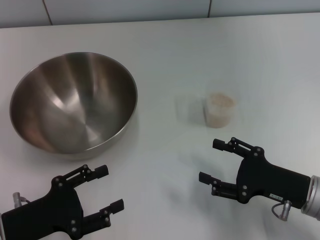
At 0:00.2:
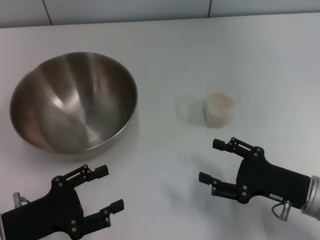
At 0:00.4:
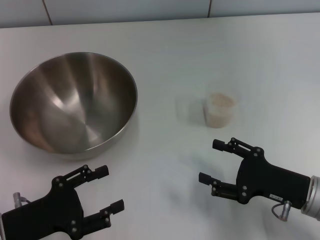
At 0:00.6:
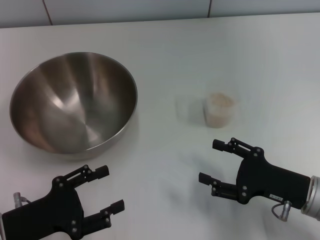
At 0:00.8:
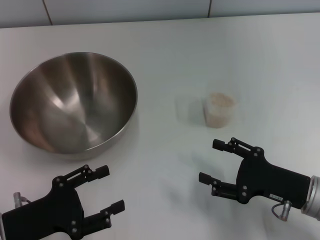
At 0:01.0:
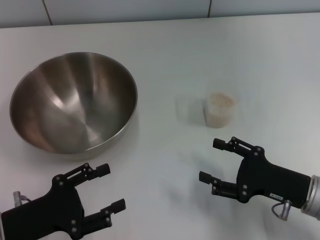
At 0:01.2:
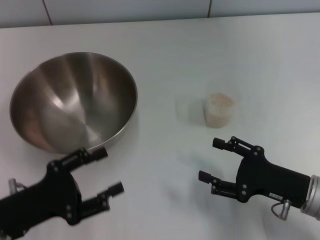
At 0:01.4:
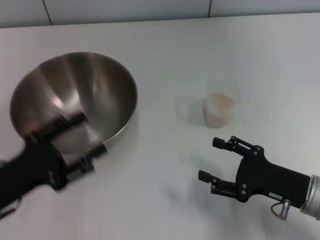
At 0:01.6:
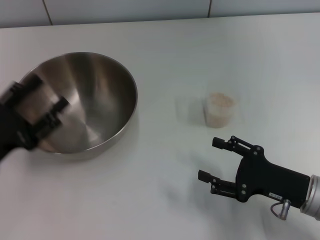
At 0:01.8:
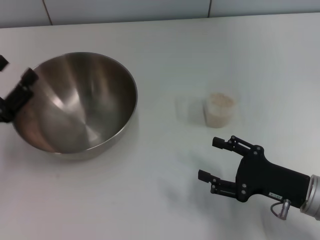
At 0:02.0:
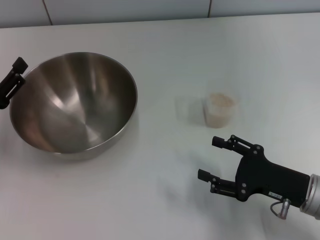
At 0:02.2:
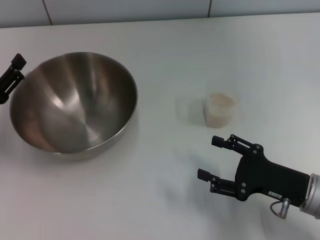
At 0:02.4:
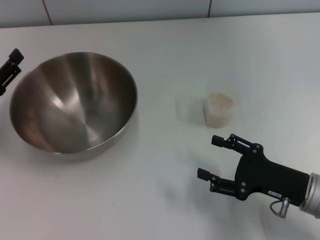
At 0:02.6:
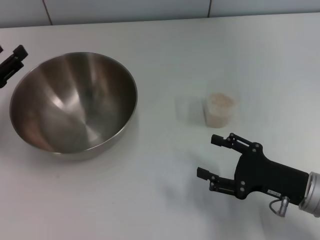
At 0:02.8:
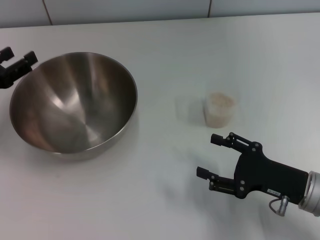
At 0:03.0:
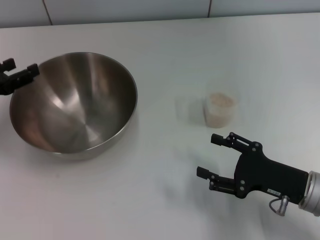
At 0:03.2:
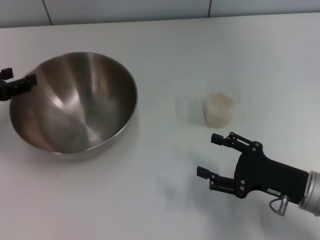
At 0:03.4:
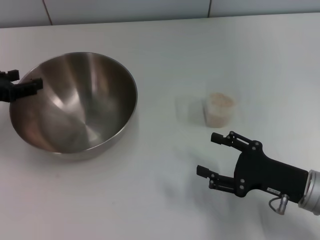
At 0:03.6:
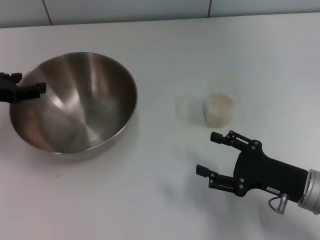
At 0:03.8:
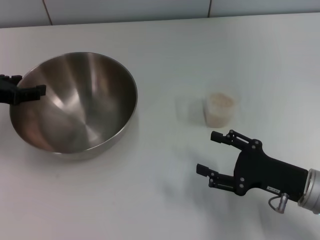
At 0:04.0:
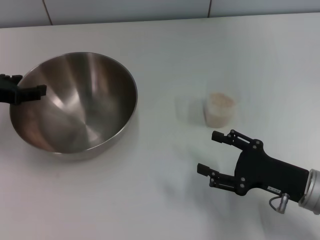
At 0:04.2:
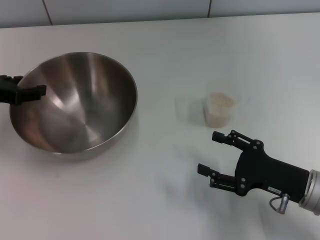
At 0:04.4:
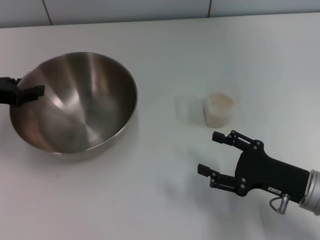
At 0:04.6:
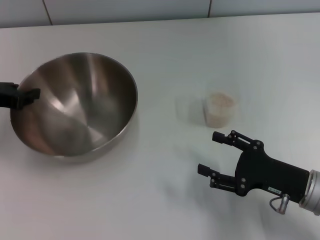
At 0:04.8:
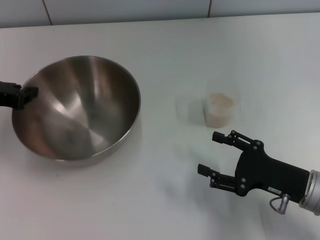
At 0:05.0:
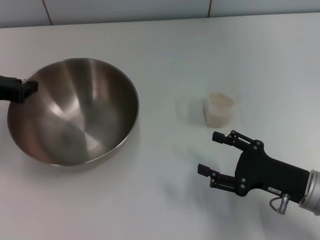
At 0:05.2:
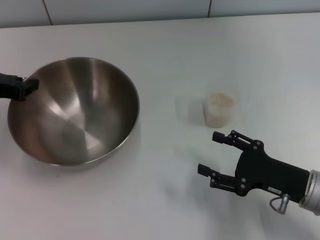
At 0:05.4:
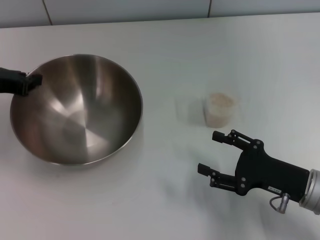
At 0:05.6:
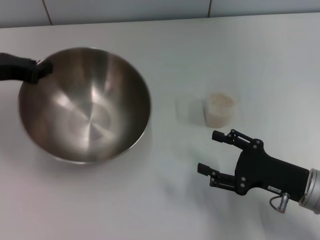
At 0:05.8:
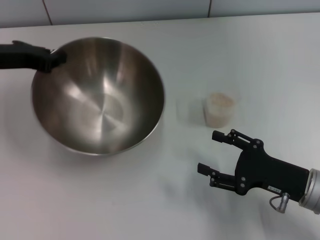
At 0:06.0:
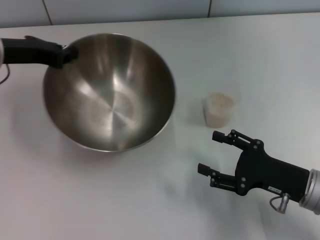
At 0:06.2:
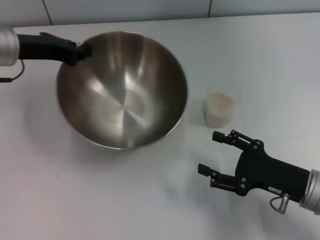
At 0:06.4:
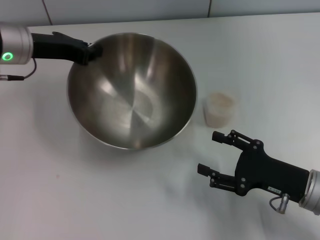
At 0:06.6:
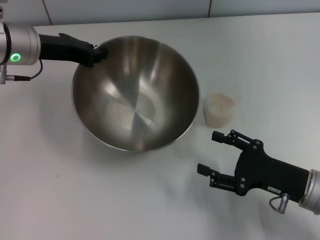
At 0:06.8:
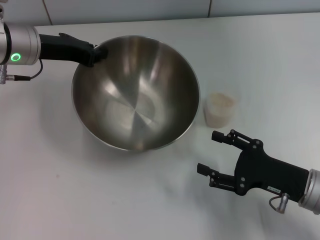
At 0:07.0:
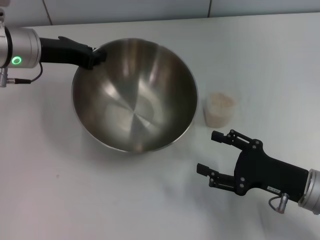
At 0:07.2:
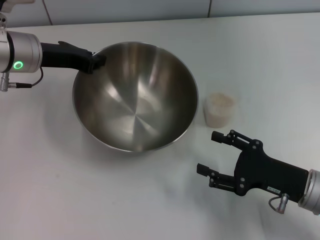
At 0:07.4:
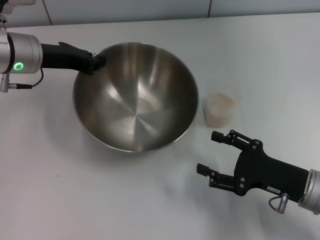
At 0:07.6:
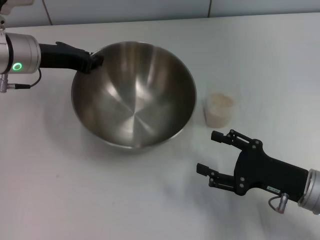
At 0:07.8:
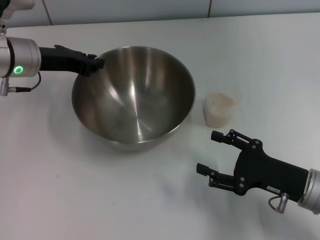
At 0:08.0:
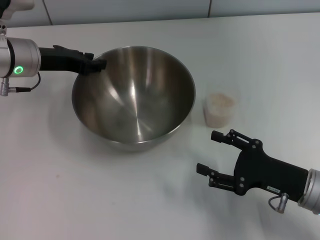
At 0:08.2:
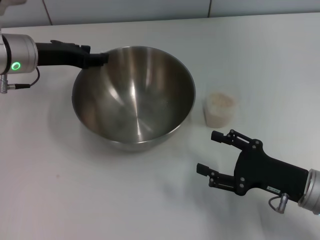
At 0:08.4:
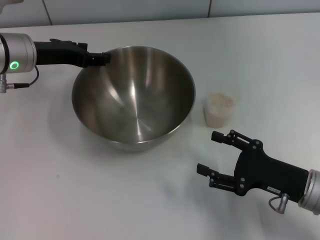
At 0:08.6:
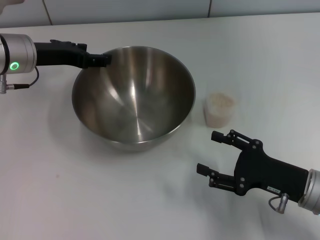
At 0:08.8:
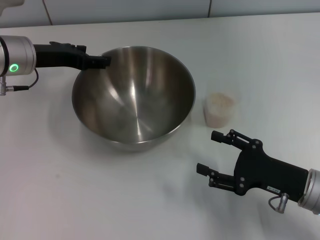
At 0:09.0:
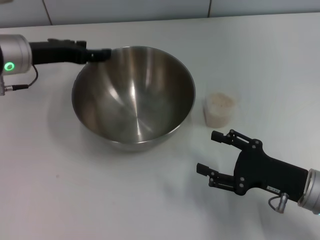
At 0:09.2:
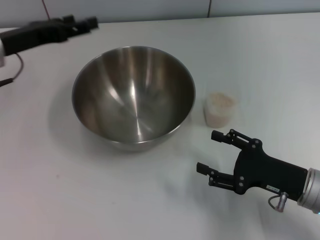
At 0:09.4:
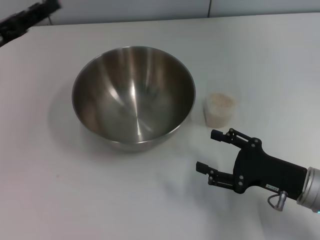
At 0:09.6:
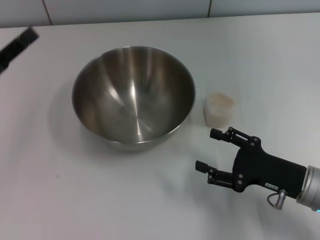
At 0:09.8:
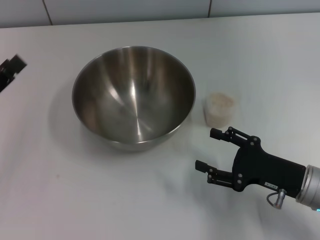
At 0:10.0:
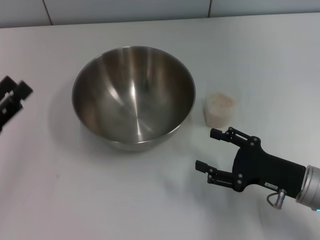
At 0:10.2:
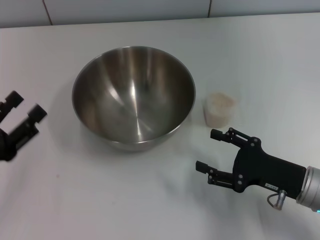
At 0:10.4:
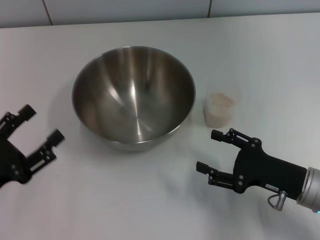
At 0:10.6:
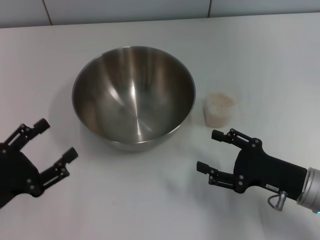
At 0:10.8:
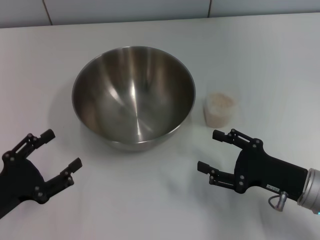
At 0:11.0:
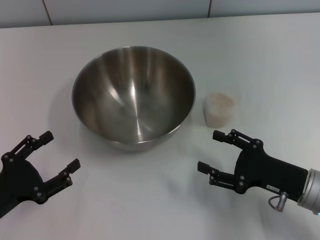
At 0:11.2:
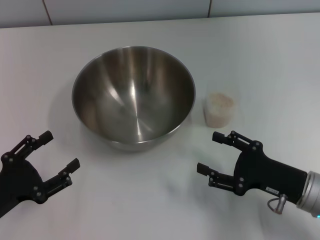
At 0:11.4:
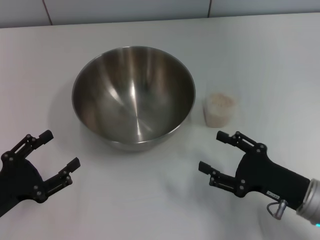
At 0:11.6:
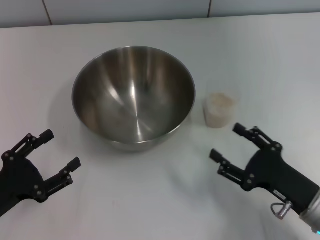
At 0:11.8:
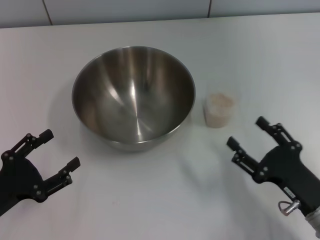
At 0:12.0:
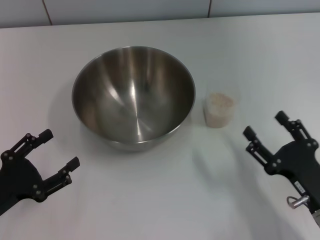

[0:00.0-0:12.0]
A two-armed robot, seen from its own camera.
Task of the whole recording: Place the bowl in the middle of the table with one hand and pour the rice from the grain cup into it with the other hand.
Step, 0:00.0 to 0:05.4: Pick up the bowl with the left gripper.
Step, 0:05.6 to 0:08.4: Place the bowl in the center of view with the left gripper.
0:00.0 to 0:01.6: The left gripper ends up about 5 cm from where it was.
0:01.6 to 0:03.0: The left gripper travels forward by some 10 cm.
0:04.4 to 0:06.0: The left gripper moves to the right, approximately 5 cm, and closes up.
0:07.6 to 0:09.0: The left gripper opens.
0:09.0 to 0:10.4: The left gripper heads backward, covering some 20 cm.
0:10.4 to 0:12.0: The right gripper heads backward, covering about 5 cm.

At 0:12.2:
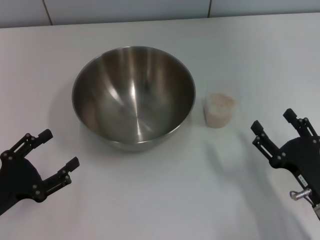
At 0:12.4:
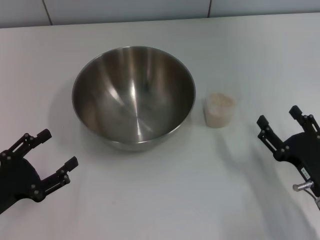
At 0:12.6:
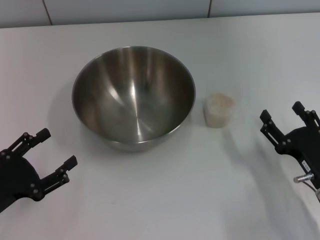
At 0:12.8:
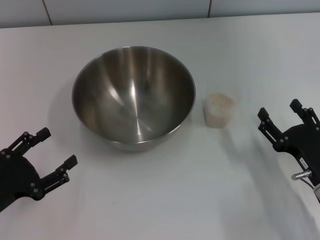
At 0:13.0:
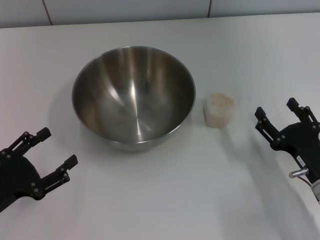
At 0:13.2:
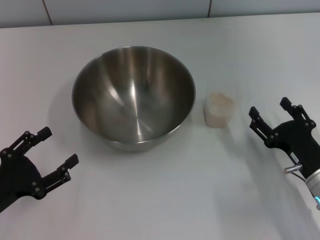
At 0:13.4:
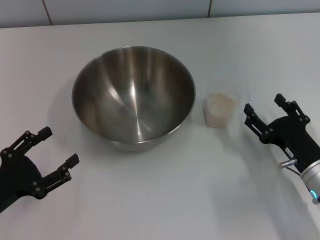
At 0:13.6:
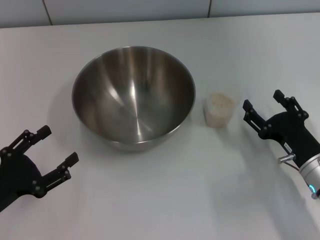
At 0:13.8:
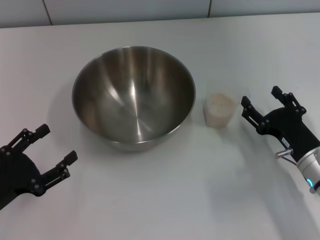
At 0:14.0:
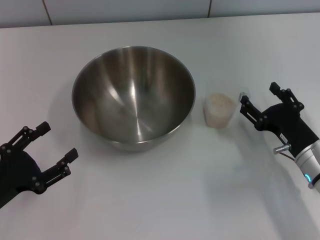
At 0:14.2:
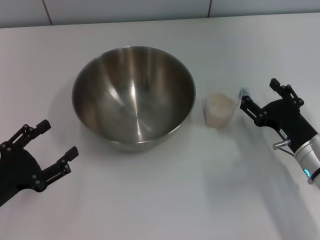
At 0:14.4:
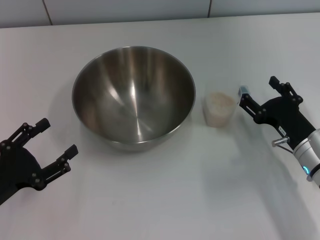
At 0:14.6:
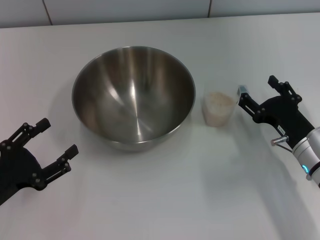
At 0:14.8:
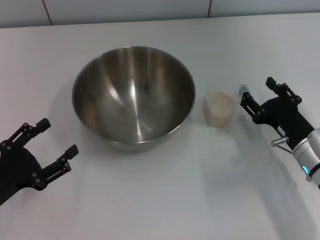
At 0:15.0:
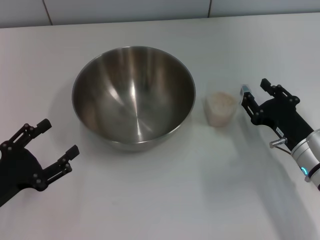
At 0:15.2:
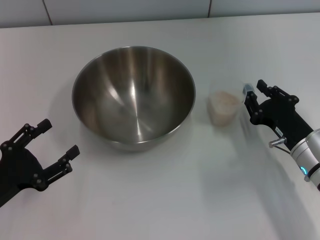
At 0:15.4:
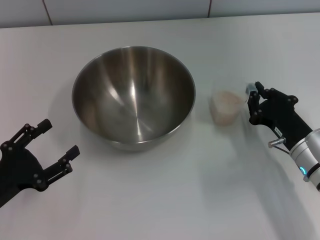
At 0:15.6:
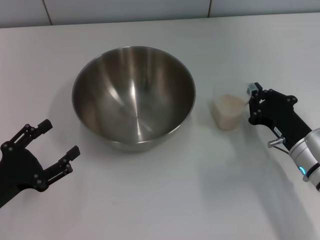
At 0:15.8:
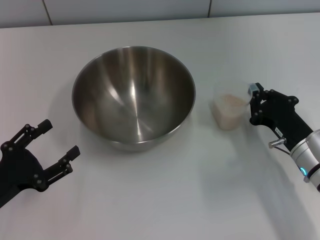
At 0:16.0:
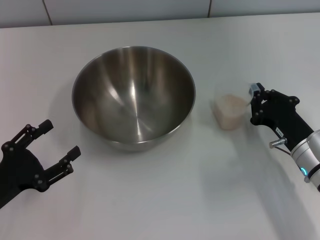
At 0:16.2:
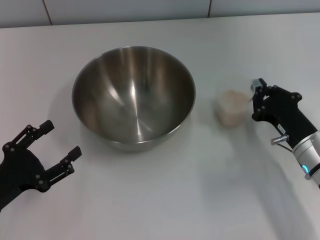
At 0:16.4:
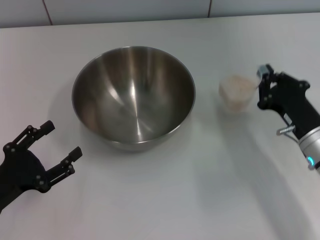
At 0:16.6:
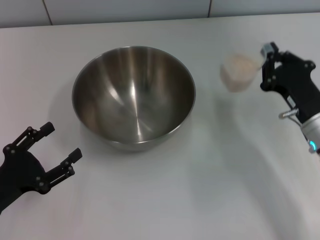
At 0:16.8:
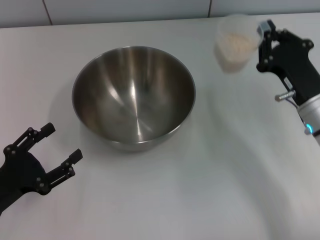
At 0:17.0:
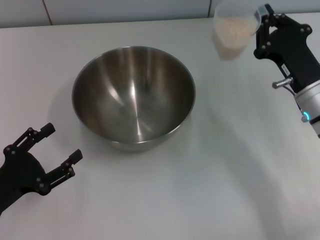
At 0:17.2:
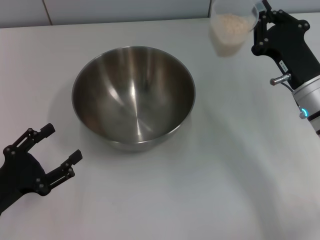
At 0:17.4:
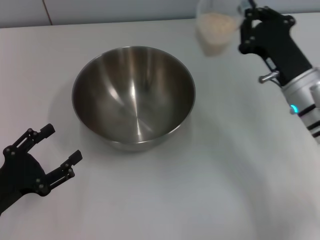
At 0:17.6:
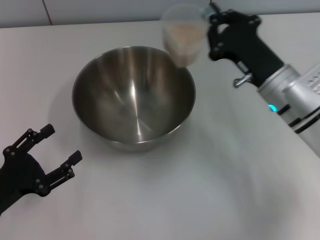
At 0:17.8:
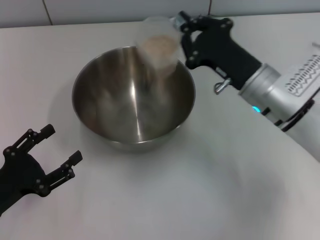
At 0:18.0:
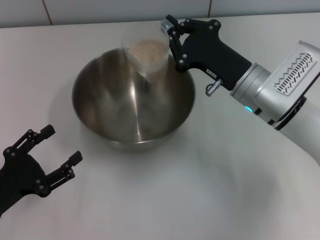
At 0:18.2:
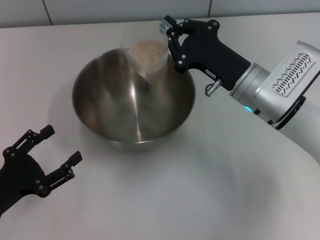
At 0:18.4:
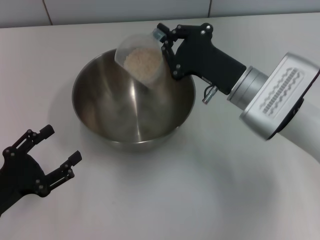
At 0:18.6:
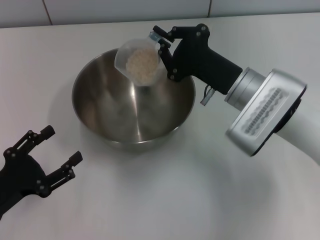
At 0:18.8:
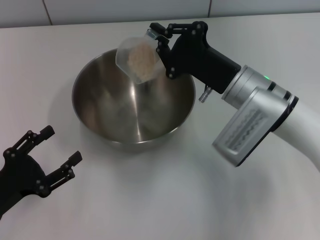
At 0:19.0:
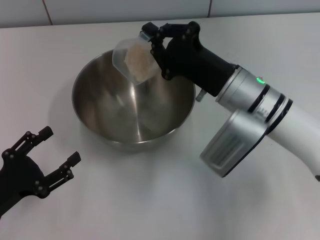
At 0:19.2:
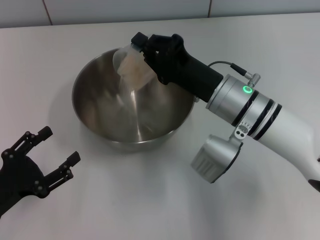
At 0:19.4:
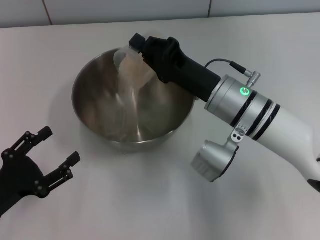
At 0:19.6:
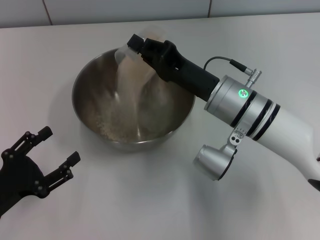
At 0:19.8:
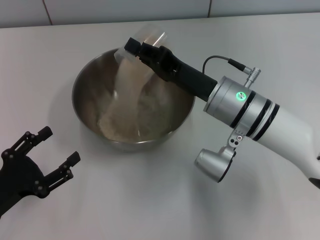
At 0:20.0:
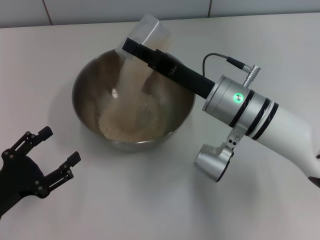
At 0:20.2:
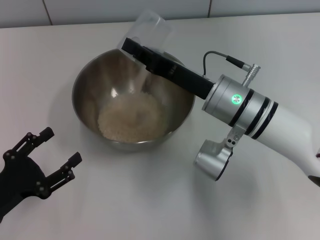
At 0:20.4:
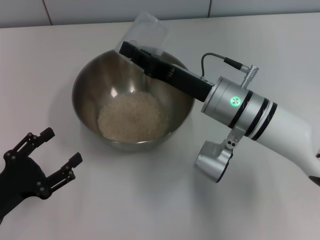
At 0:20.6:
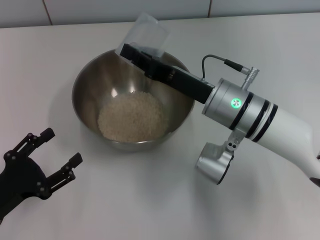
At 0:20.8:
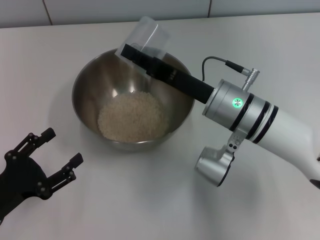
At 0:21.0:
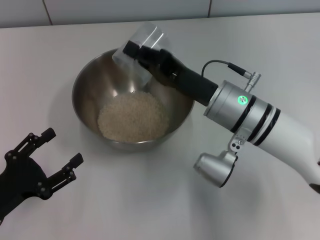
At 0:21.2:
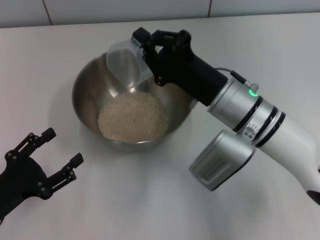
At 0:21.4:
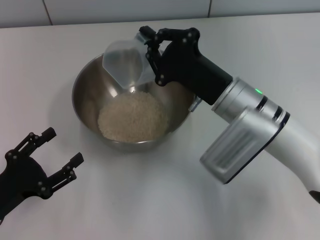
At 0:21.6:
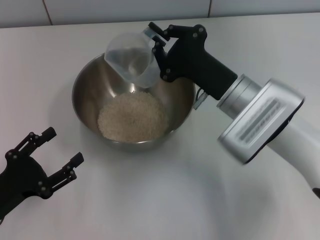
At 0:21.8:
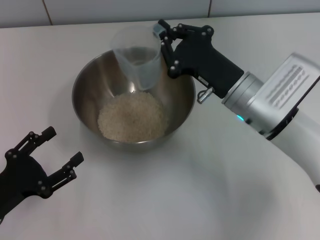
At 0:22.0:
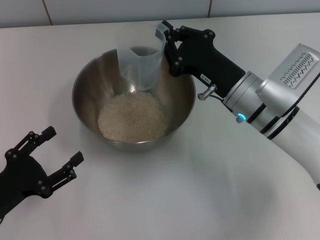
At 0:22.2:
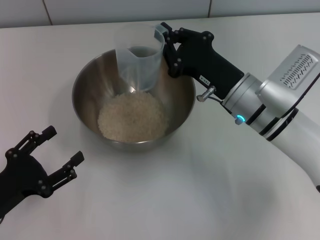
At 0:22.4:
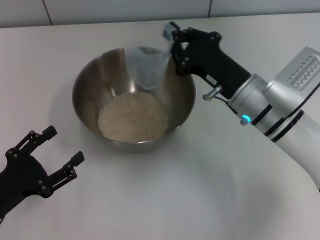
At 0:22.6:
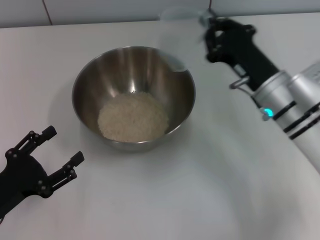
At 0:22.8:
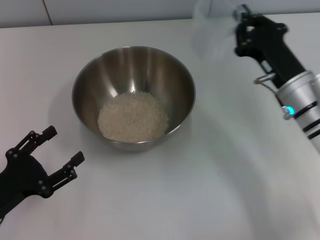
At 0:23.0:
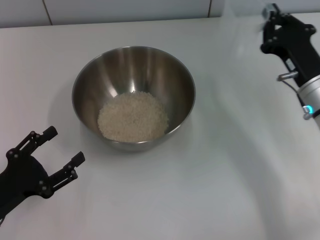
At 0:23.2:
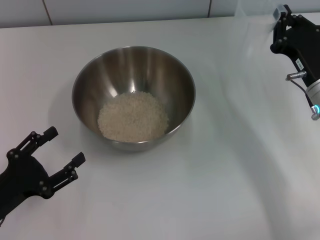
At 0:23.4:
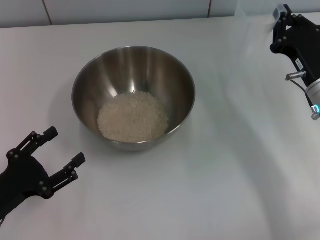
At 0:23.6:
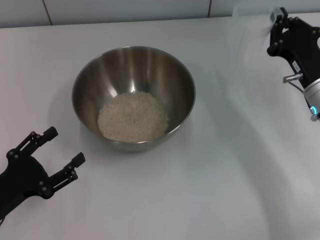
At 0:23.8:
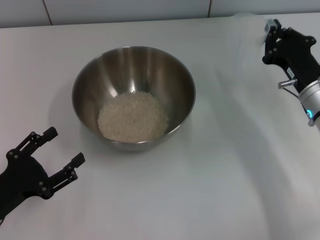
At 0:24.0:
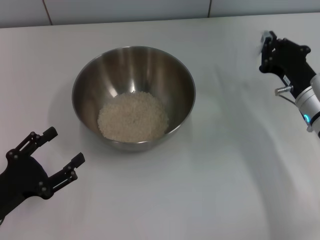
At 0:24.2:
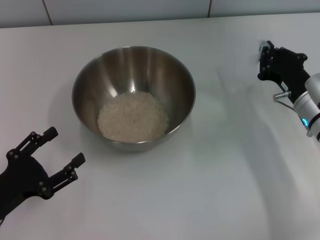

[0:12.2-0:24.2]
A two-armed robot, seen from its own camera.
Task of the whole recording: Place the bowl in the middle of the table with one hand and pour the rice from the grain cup into it with the other hand.
Step, 0:12.2 to 0:16.8: Pick up the cup with rice in it with the right gripper.
Step, 0:17.0 to 0:20.4: Pour the rice from the cup into the bowl with the right gripper.
0:12.2 to 0:13.8: The right gripper moves forward, some 5 cm.
0:13.8 to 0:15.2: The right gripper closes.
0:15.2 to 0:16.6: The right gripper closes up.
0:16.6 to 0:18.2: The right gripper heads to the left and forward, covering some 10 cm.
0:21.2 to 0:22.6: The right gripper goes roughly 5 cm to the right.
0:22.6 to 0:24.2: The right gripper goes roughly 5 cm to the right.
